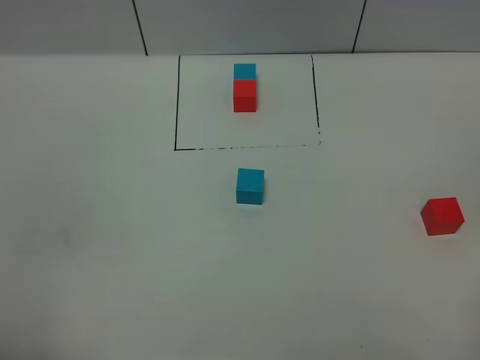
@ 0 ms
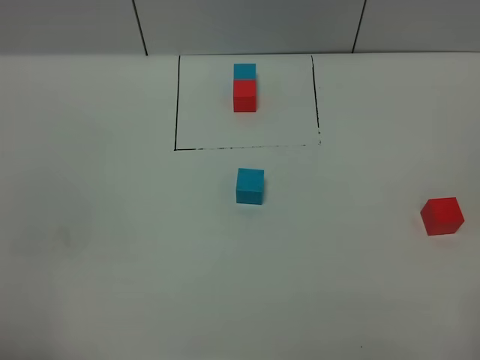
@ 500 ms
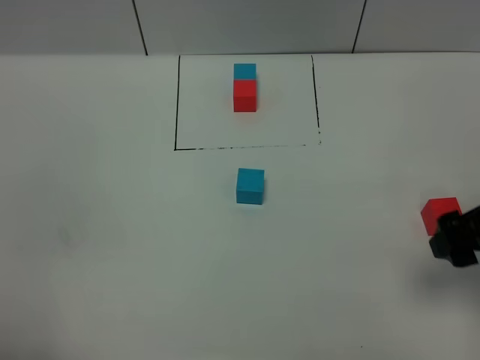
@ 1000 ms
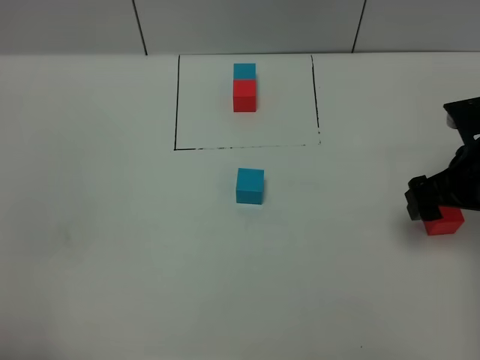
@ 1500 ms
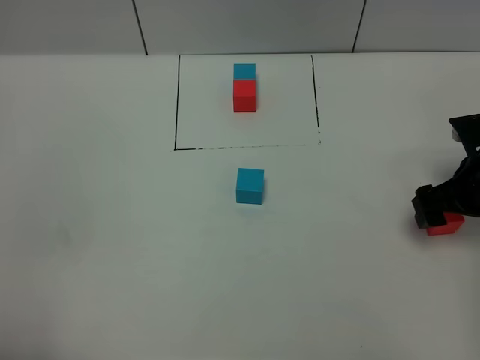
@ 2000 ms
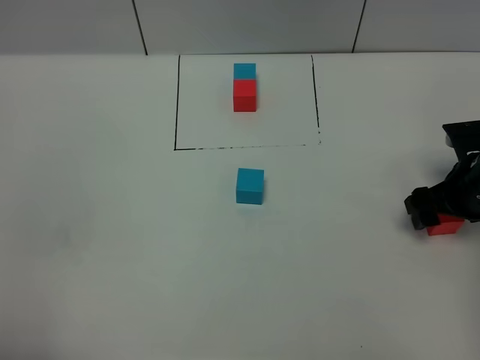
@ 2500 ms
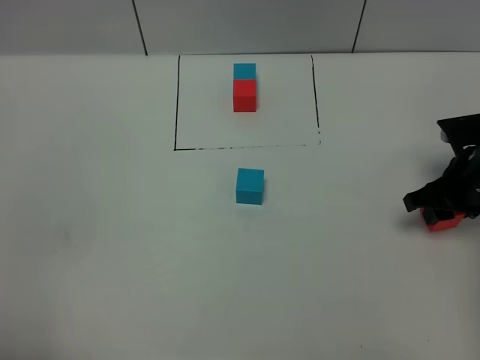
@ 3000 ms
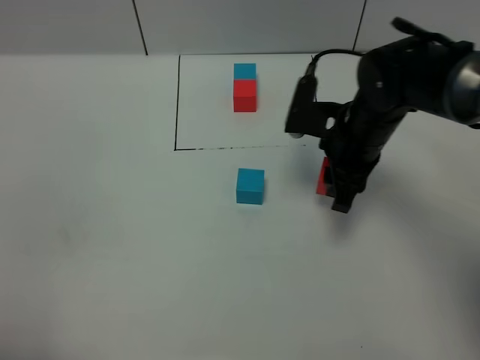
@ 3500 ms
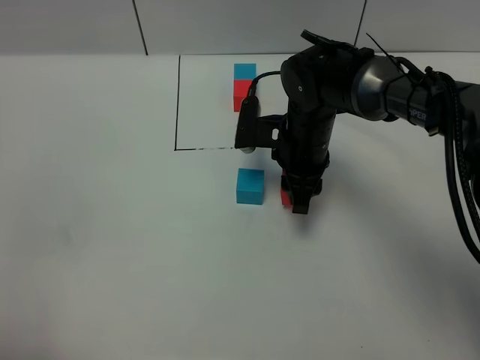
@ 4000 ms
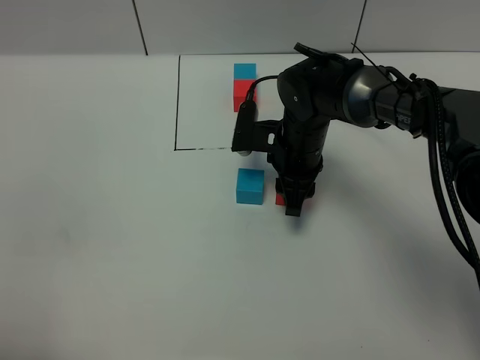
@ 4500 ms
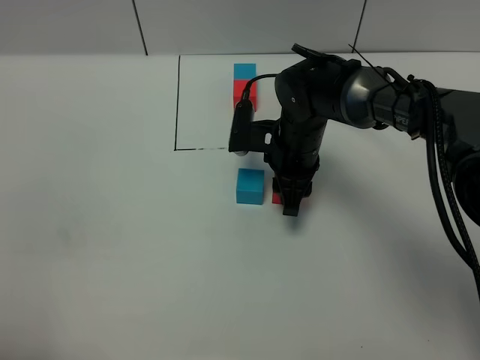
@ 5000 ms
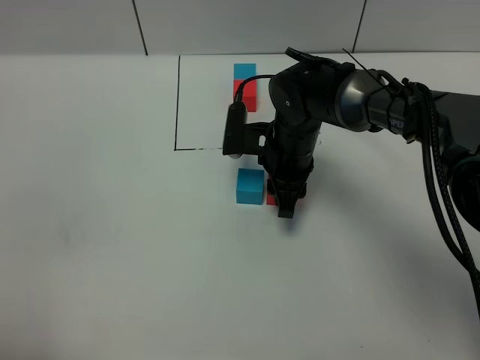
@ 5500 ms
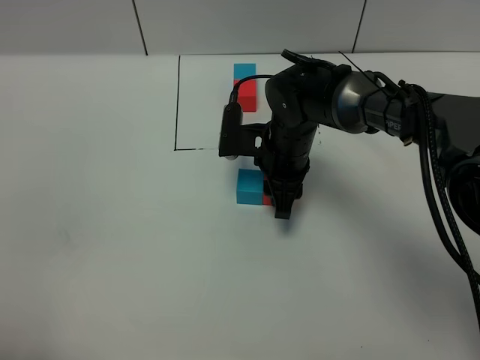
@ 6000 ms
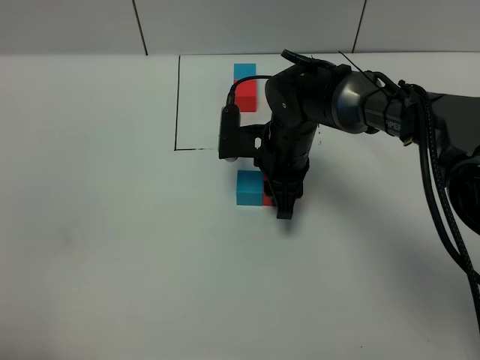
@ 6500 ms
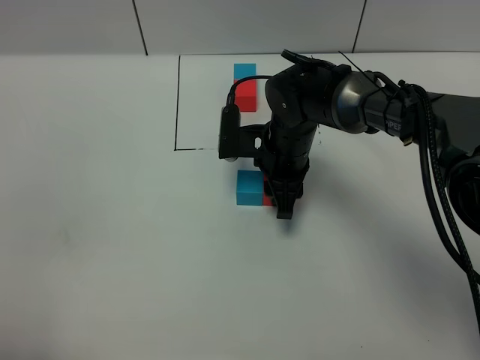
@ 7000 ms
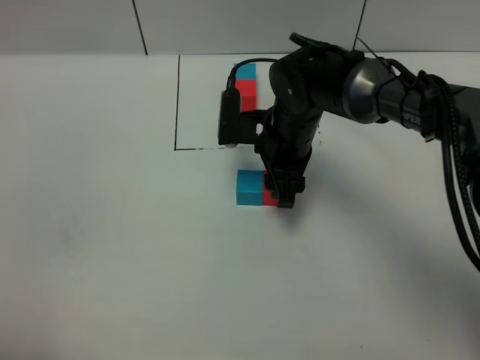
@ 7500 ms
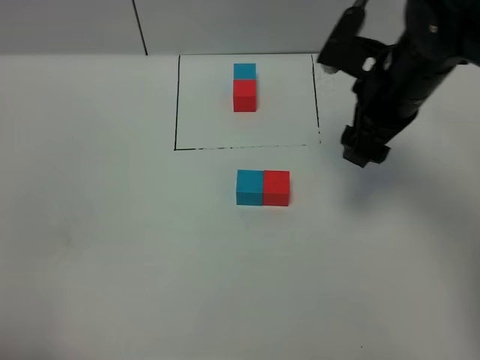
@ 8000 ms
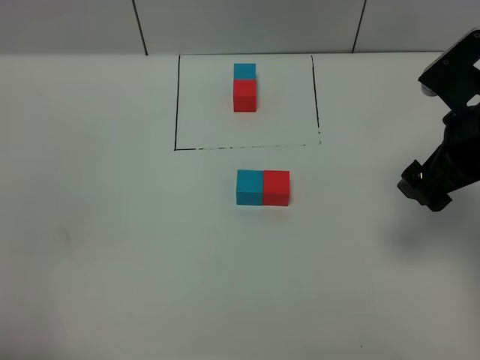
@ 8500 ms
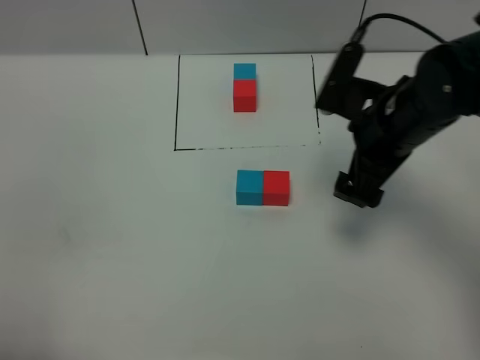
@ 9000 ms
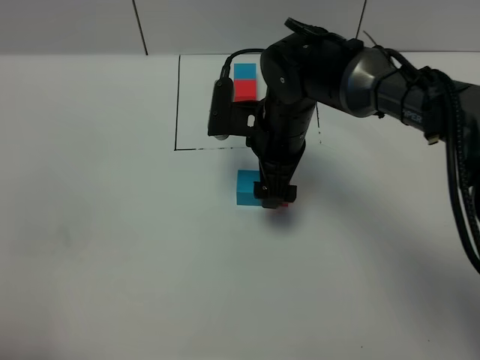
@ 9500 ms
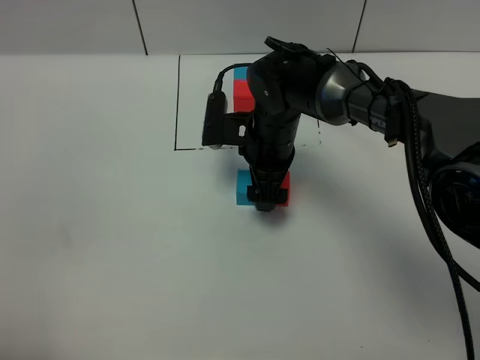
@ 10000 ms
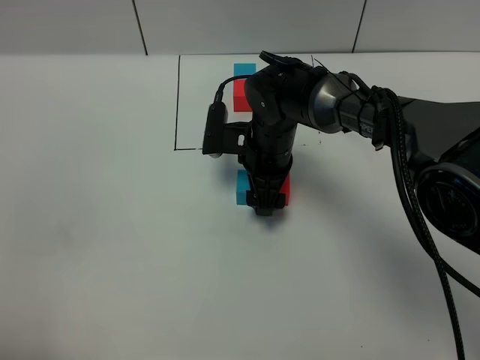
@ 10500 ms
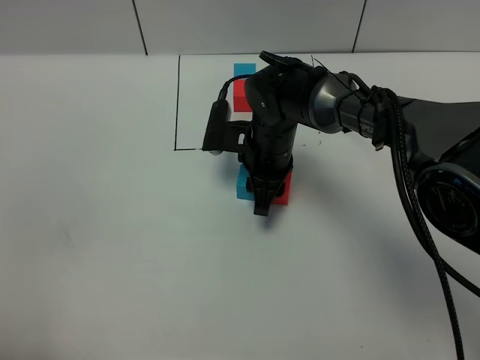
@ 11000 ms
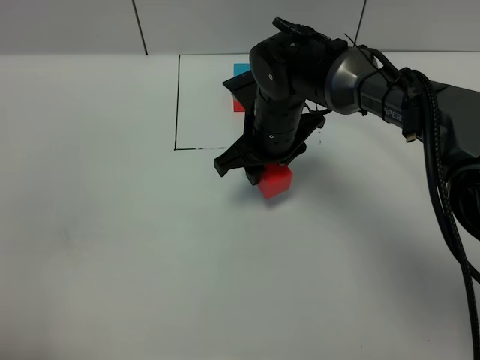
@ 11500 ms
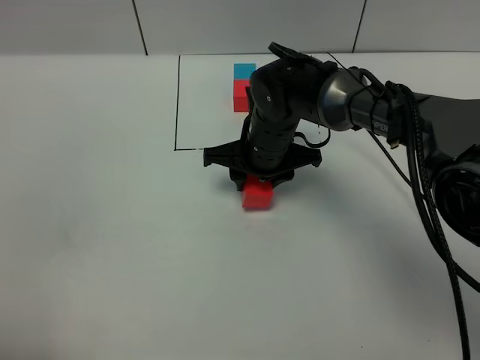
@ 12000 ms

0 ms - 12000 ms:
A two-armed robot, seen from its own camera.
Task of the whole recording: According to the building block template in front, assemble the scattered blocks together.
Step, 0 ms - 7000 ms: Put the red cube on the right of the blue cube.
0 ms - 2000 ms: The right gripper goes roughly 35 cm forward and downward.
2000 ms - 4000 ms: The right gripper travels to the left and forward by about 25 cm, and closes.
4000 ms - 6000 ms: There are only small adjustments of the grippers.
6000 ms - 8000 ms: The right gripper heads upward and to the right, covering approximately 20 cm, and opens its fingers.
8000 ms - 10000 ms: The right gripper heads to the left, downward and forward, covering some 20 cm.
10000 ms - 12000 ms: The right gripper closes.

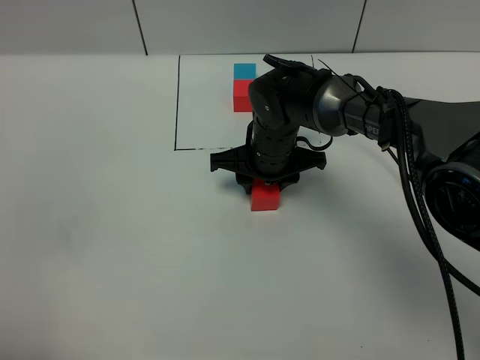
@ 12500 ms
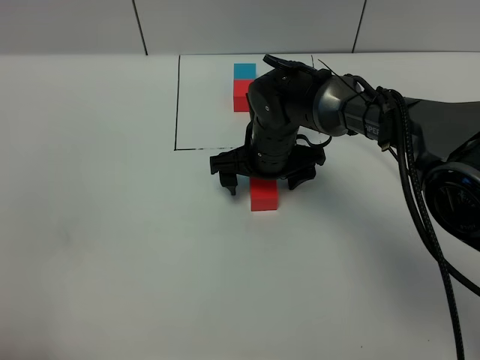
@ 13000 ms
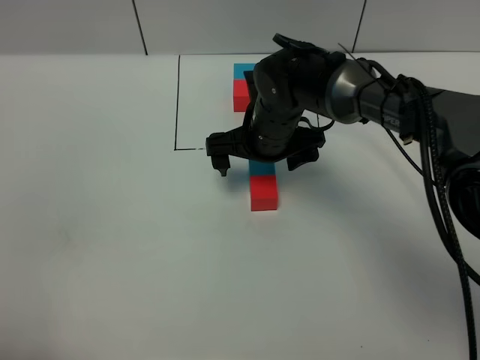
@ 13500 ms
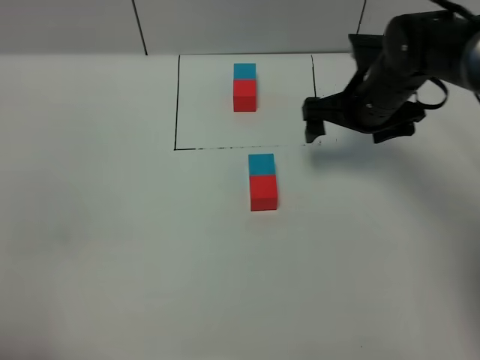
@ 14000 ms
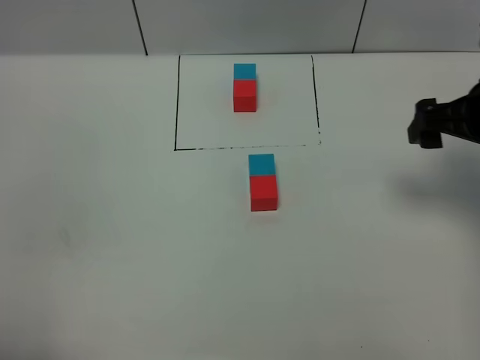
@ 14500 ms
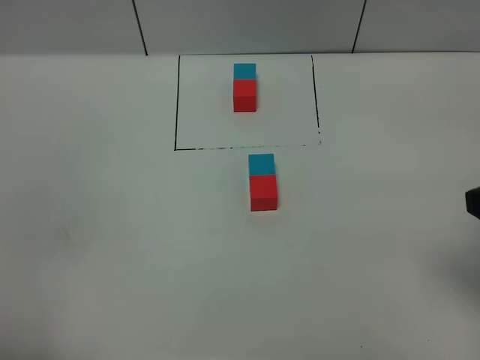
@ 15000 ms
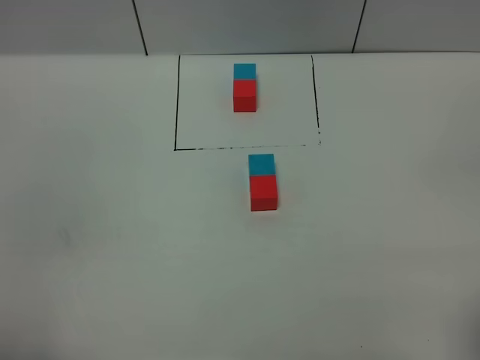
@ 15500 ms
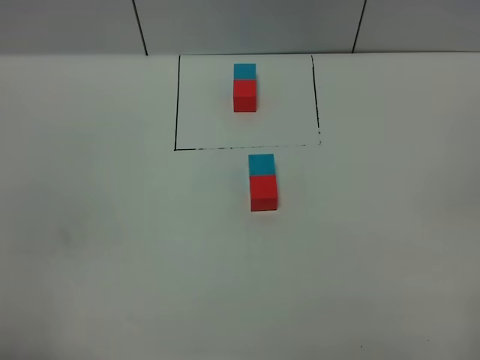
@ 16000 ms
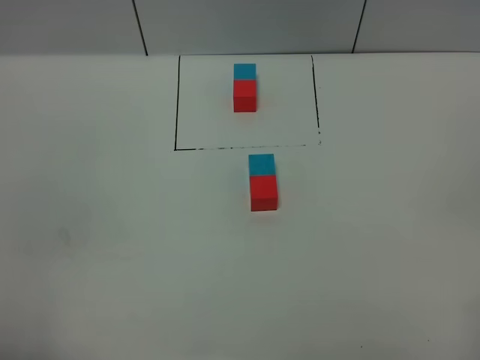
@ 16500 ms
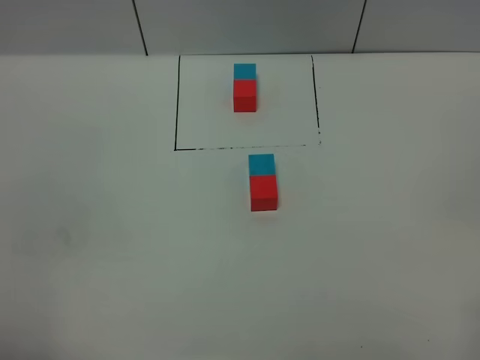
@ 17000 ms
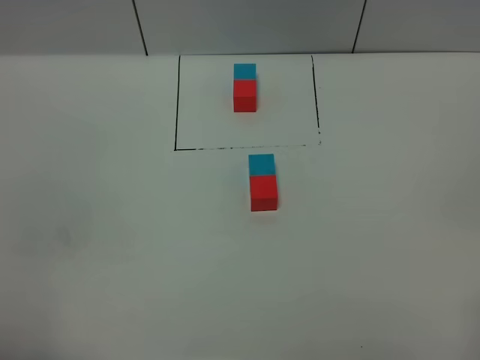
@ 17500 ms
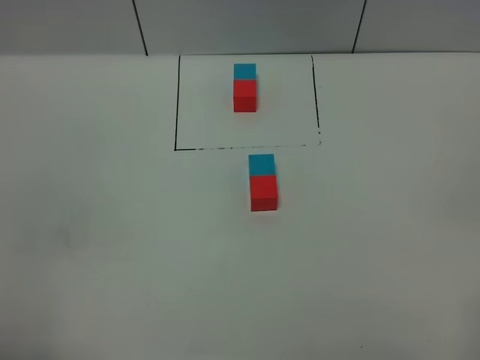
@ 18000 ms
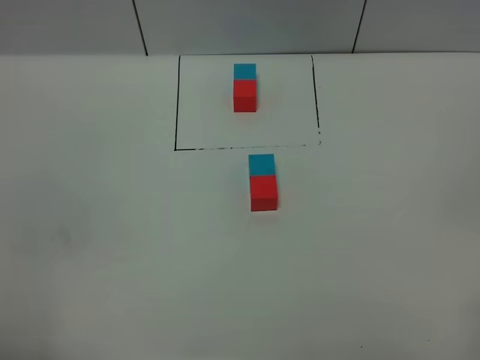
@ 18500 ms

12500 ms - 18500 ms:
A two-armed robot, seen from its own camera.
Task of the whole recording: According to the building block template in front, assemble the scattered blocks together.
12500 ms - 14500 ms: The right gripper heads to the right, upward and backward, covering roughly 30 cm, and opens up.
14500 ms - 16500 ms: The right gripper goes approximately 30 cm backward.
16500 ms - 18500 ms: Both grippers stay about where they are.

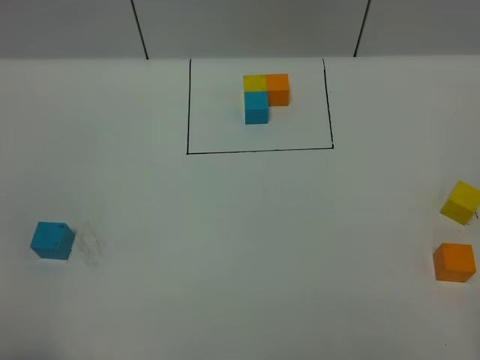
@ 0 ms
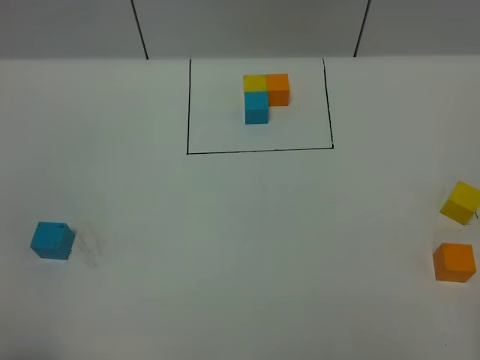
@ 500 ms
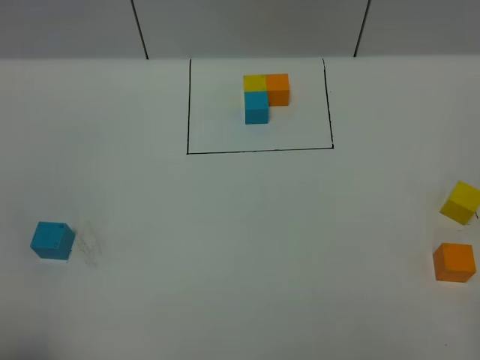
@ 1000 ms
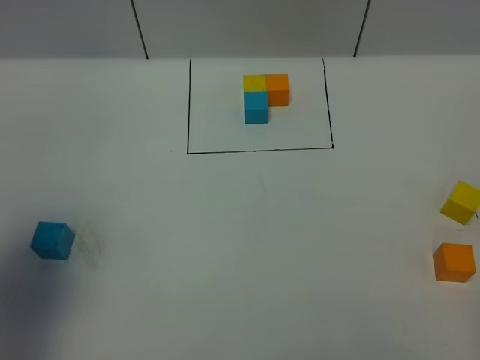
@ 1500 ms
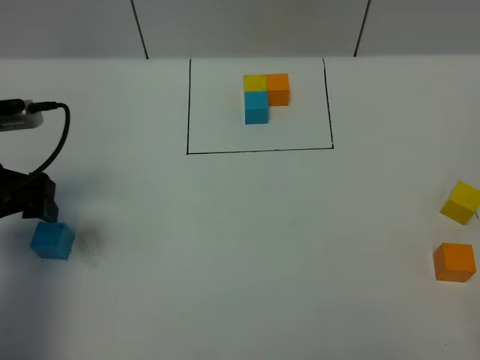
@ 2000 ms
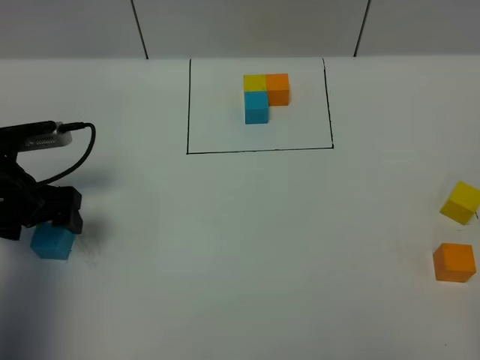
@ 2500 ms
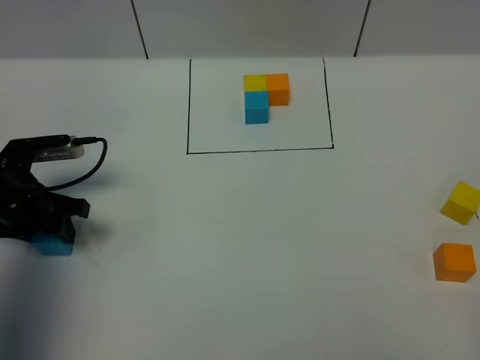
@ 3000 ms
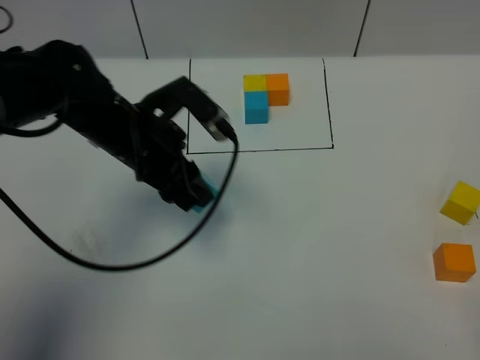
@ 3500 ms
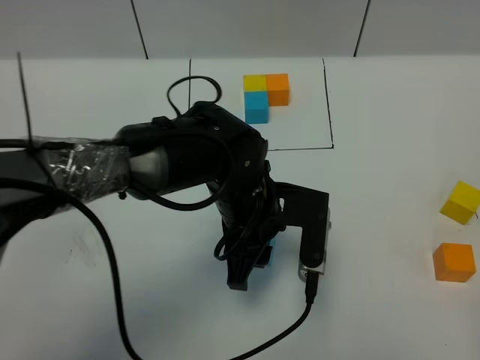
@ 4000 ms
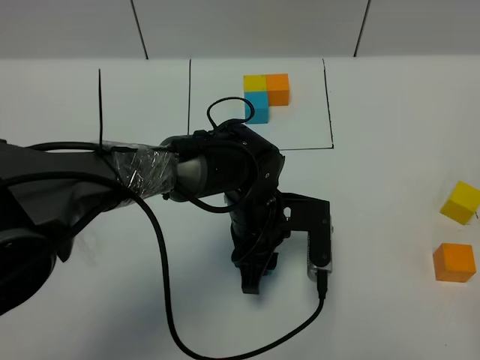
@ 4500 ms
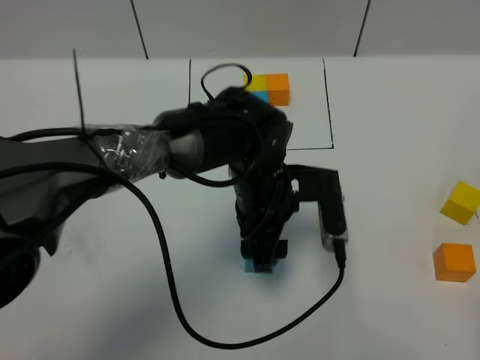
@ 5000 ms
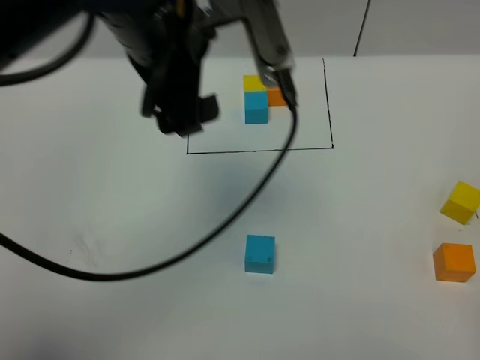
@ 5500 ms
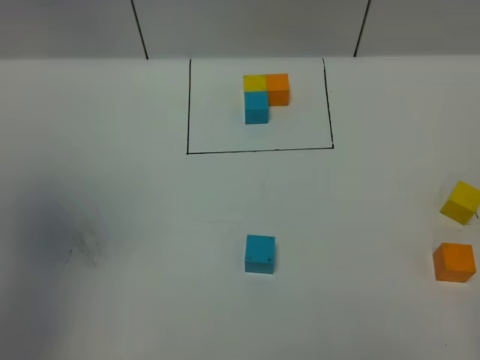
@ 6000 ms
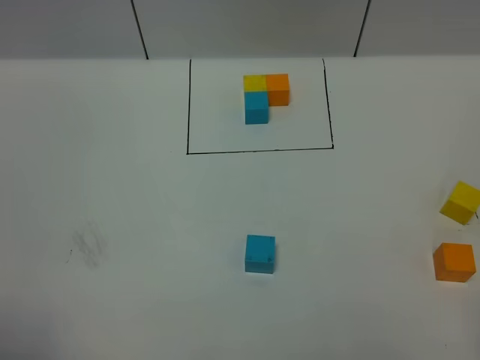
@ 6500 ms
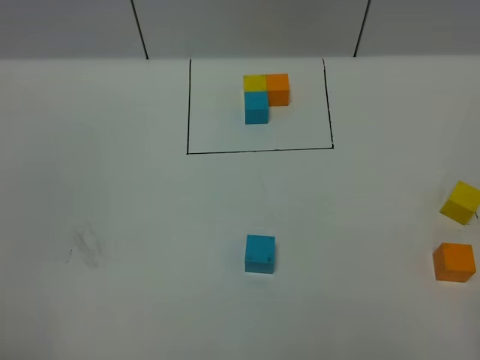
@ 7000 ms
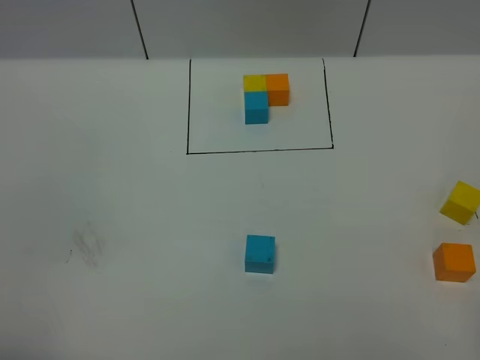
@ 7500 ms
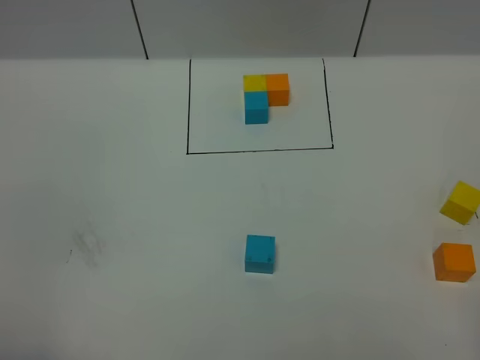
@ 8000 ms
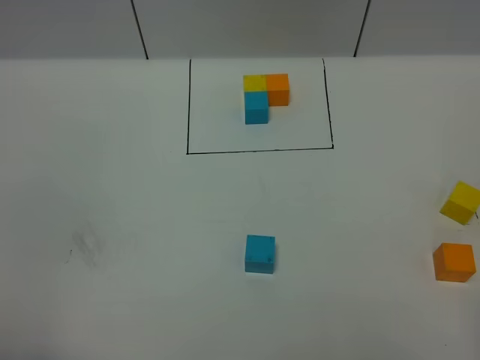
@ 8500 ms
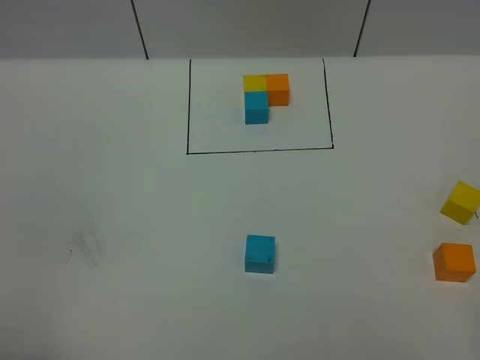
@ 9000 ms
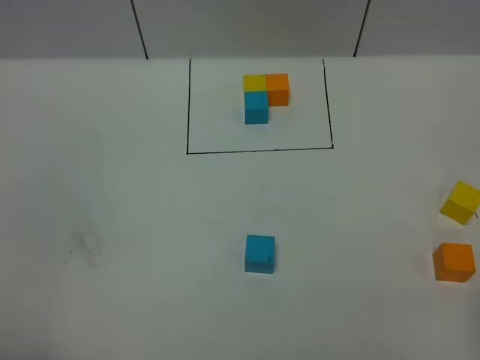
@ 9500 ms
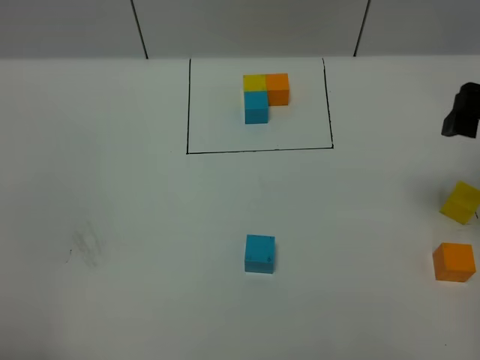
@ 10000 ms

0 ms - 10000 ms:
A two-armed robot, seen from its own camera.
Task of the whole recording: According to the building block template in front, assemble the scattered blocks together.
Step, 2000 ms - 5000 ms: Put the blue cube in the center of the table.
0 ms - 2000 ms: The left gripper travels forward by about 30 cm.
2000 ms - 4000 ms: The left gripper heads to the right, covering about 30 cm, and closes up.
4000 ms - 6000 ms: The left gripper shifts approximately 40 cm upward and to the left, and opens its fingers.
6000 ms - 8000 ms: The left gripper moves backward and downward, roughly 25 cm.
8000 ms - 10000 ms: The right gripper travels forward by some 30 cm, and opens.
